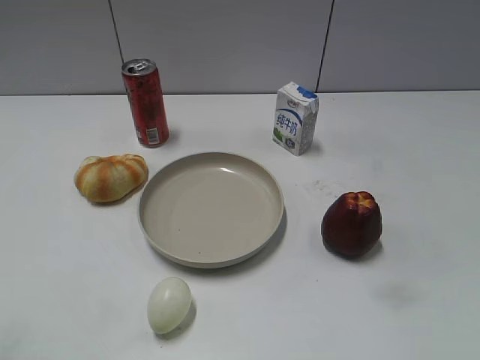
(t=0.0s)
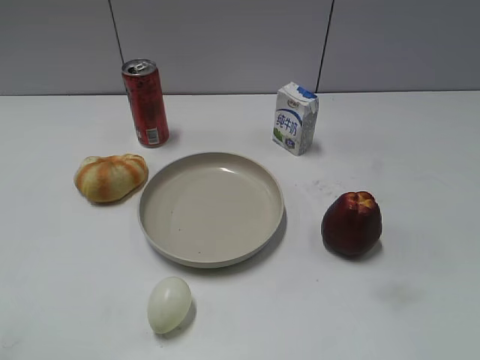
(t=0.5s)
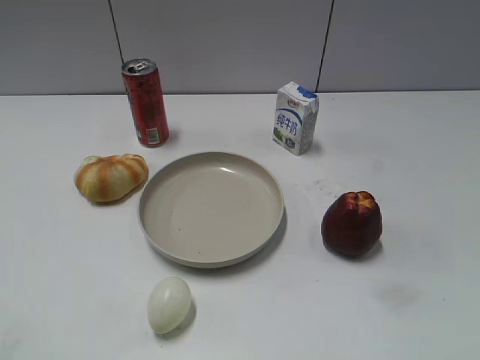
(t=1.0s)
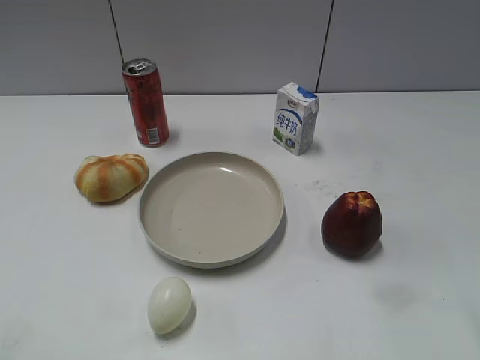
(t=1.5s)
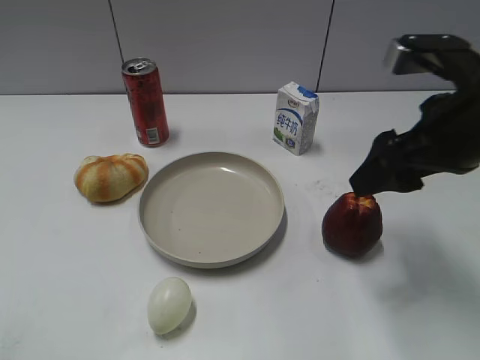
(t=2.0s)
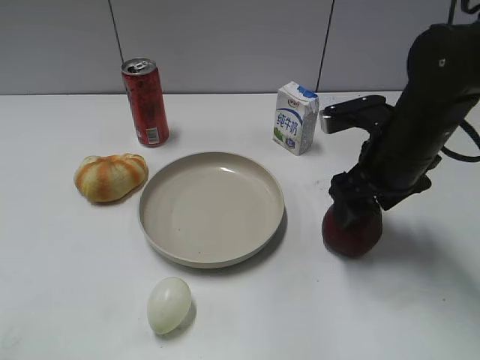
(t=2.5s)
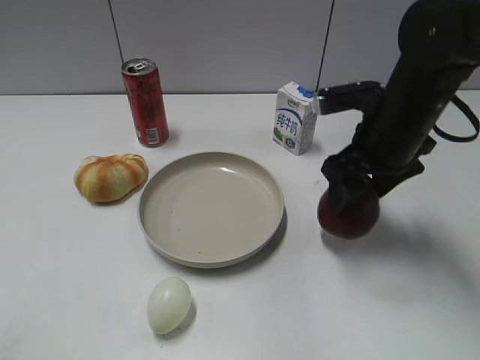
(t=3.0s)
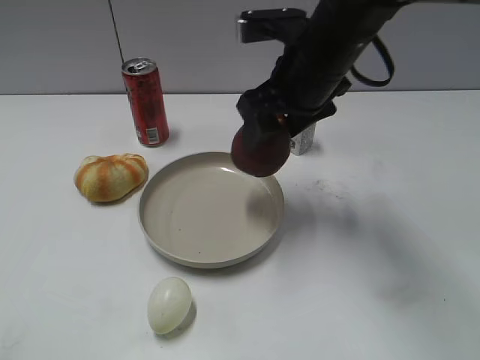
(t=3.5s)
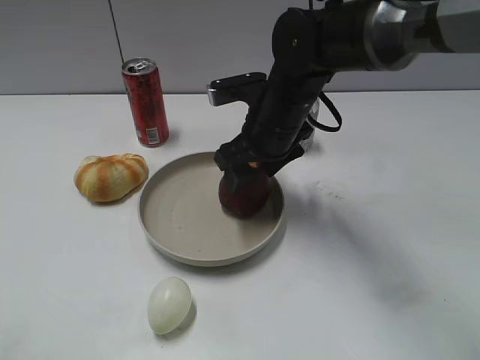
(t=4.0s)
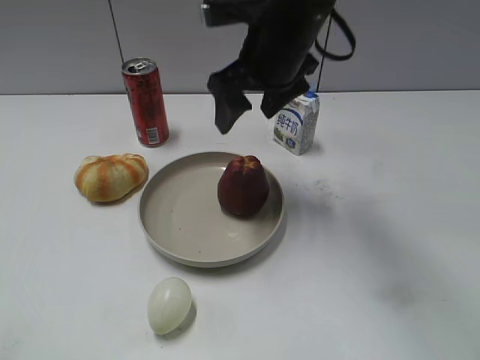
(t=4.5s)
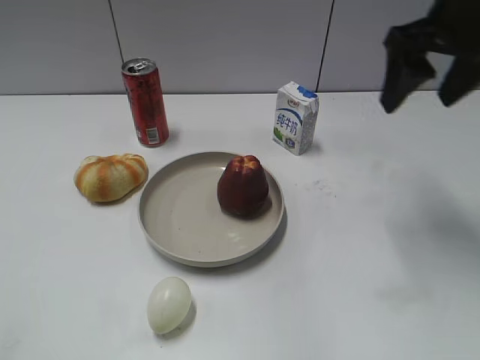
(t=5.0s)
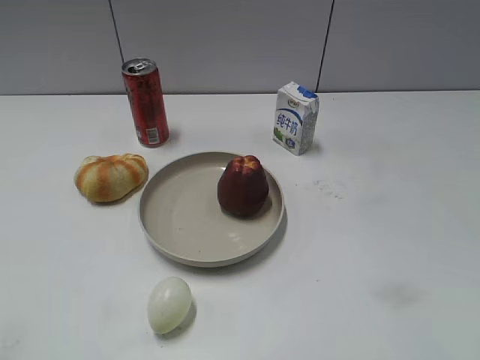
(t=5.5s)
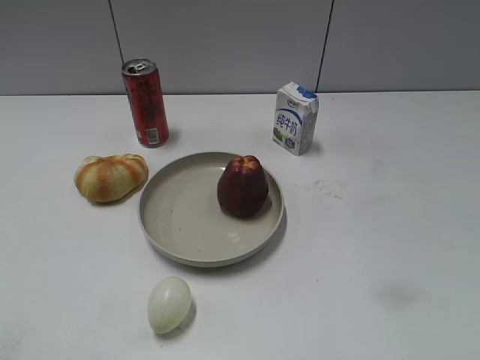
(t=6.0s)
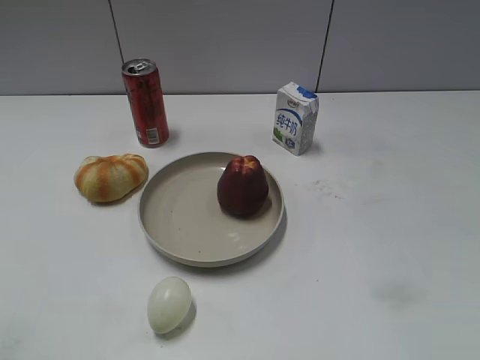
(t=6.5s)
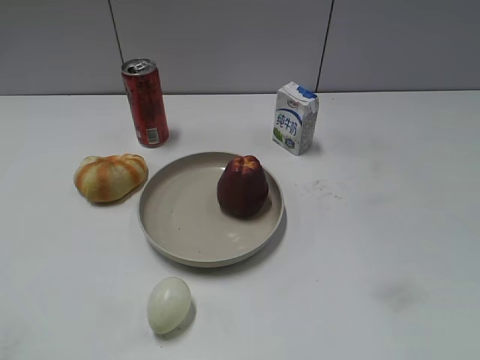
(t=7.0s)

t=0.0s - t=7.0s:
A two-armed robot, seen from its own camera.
Step, t=1.0s - t=2.5s: Grasp the apple with right gripper.
Step, t=3.0s - t=4.0s: Place the apple on the plate with right gripper.
t=2.0s - t=3.5s: The right gripper goes approximately 15 cm to the left and forward.
t=3.5s - t=5.0s: The right gripper goes about 15 cm to the right and upward.
t=5.0s - t=7.0s: The right gripper moves backward, some 30 cm.
